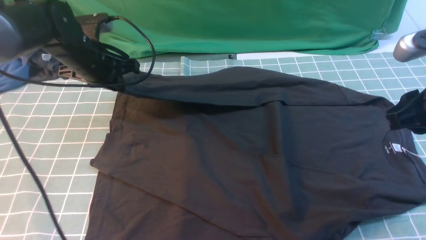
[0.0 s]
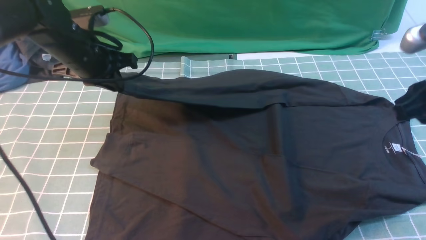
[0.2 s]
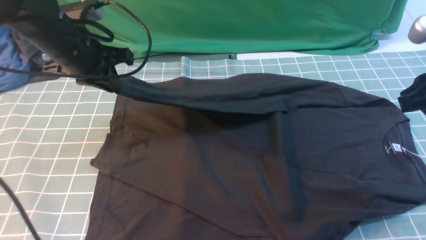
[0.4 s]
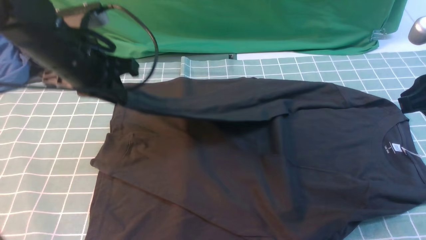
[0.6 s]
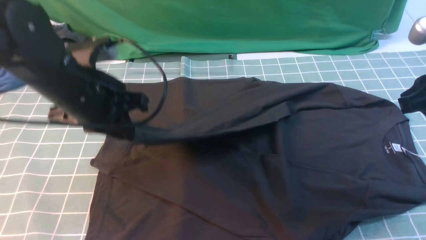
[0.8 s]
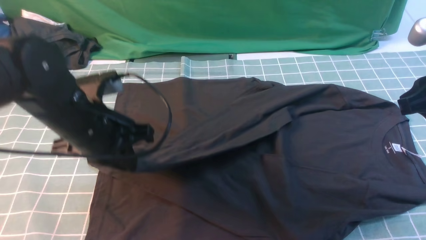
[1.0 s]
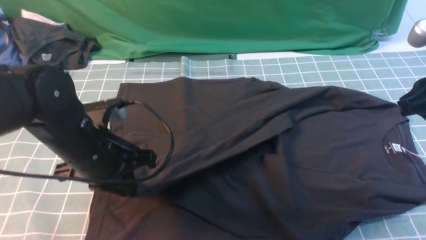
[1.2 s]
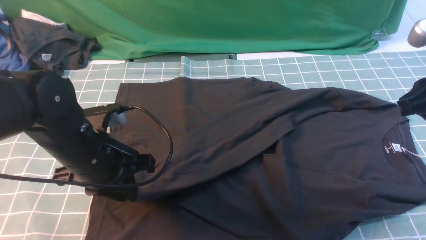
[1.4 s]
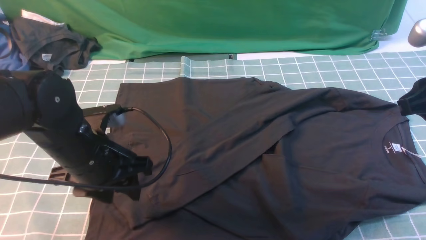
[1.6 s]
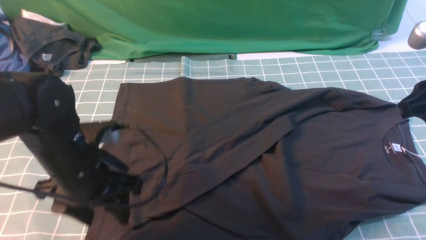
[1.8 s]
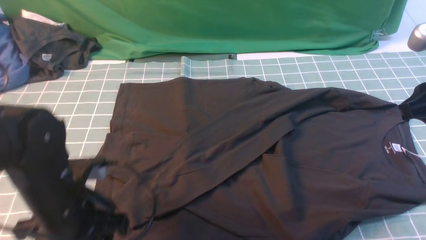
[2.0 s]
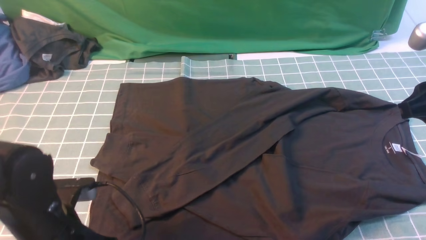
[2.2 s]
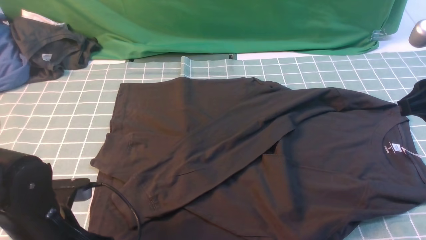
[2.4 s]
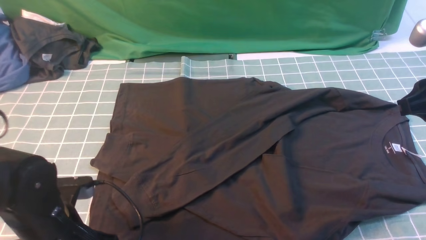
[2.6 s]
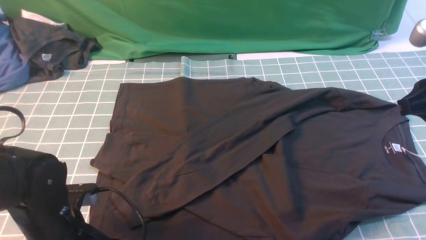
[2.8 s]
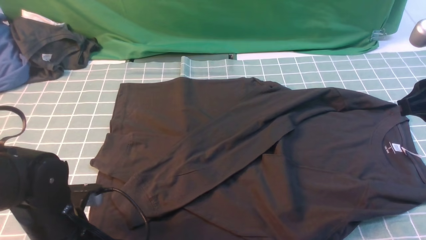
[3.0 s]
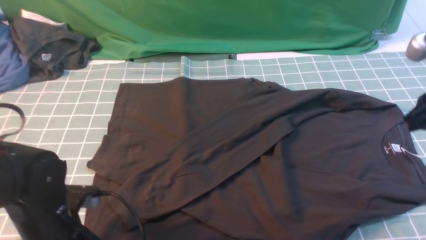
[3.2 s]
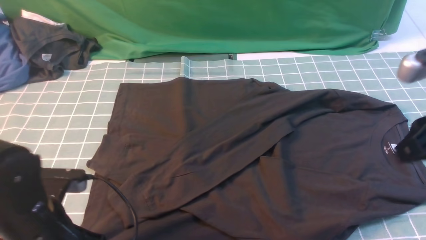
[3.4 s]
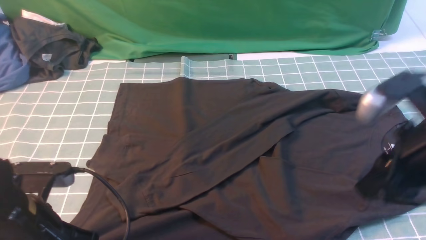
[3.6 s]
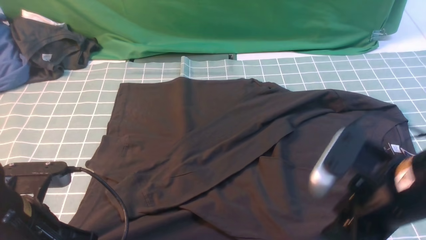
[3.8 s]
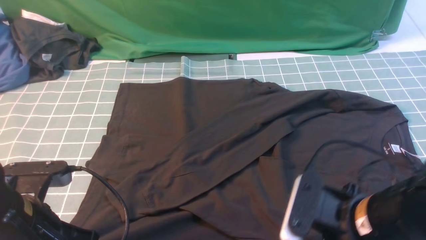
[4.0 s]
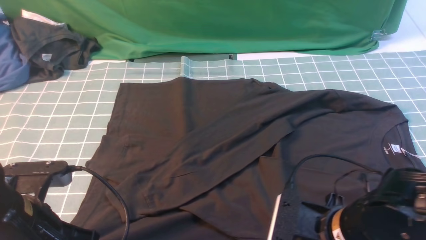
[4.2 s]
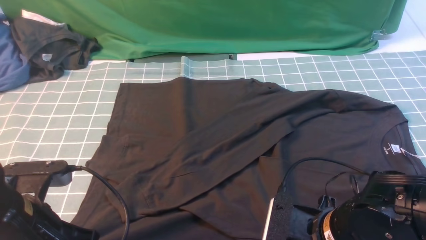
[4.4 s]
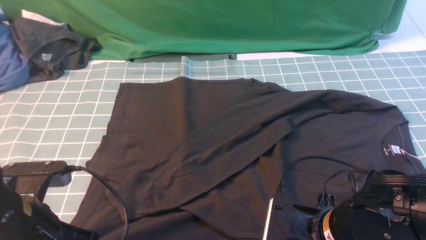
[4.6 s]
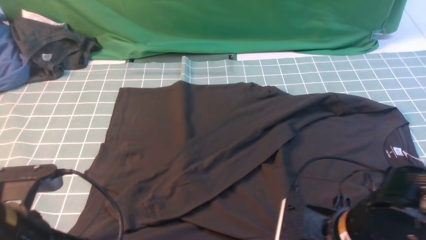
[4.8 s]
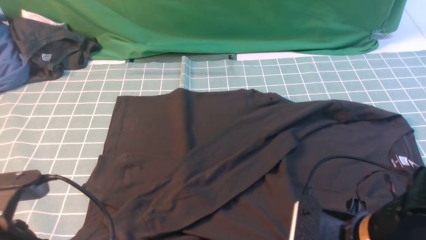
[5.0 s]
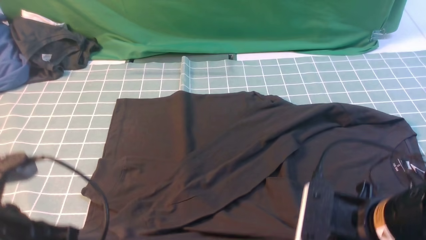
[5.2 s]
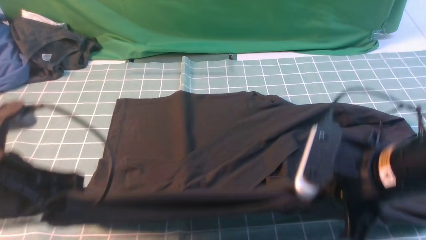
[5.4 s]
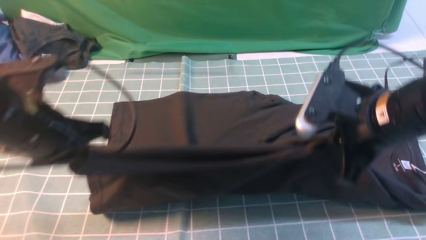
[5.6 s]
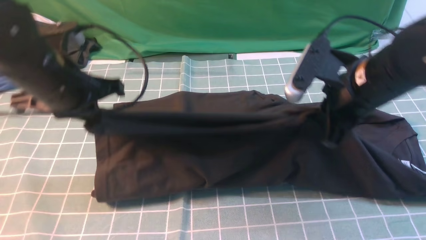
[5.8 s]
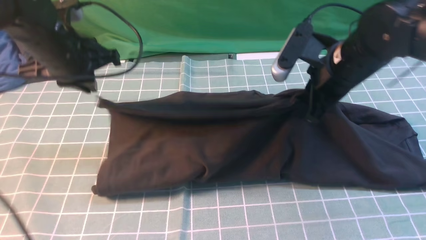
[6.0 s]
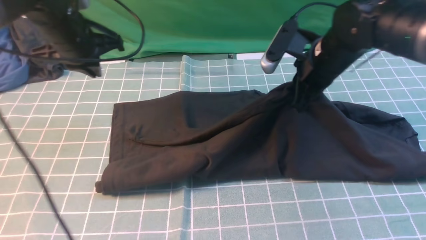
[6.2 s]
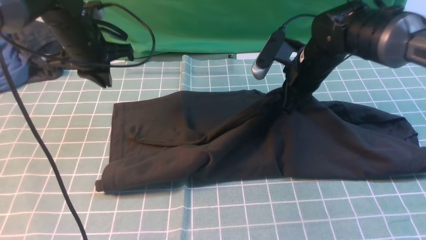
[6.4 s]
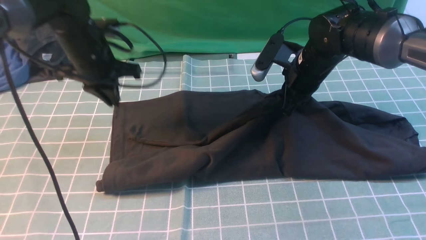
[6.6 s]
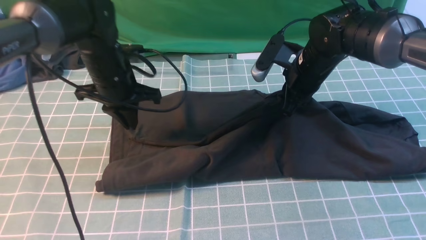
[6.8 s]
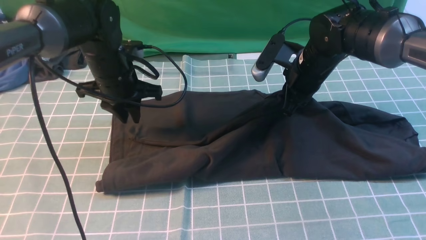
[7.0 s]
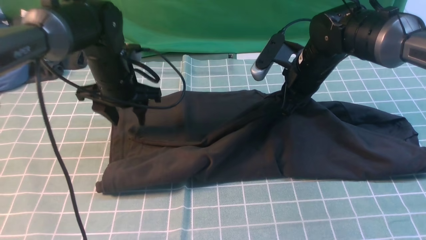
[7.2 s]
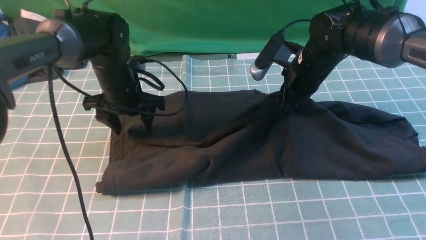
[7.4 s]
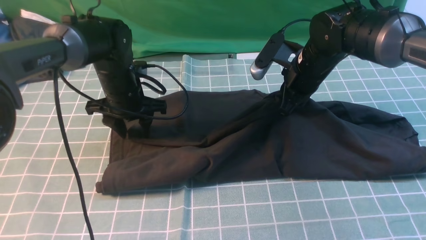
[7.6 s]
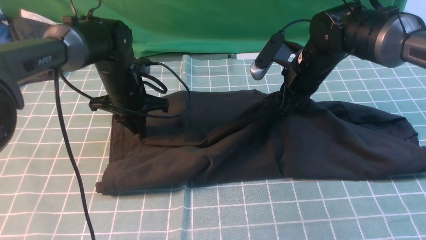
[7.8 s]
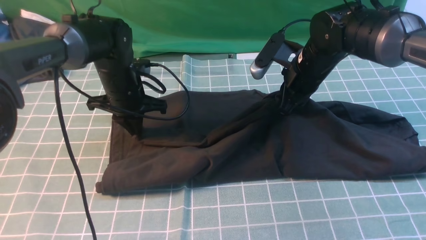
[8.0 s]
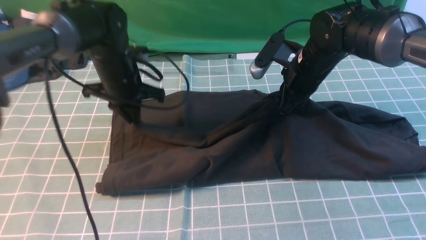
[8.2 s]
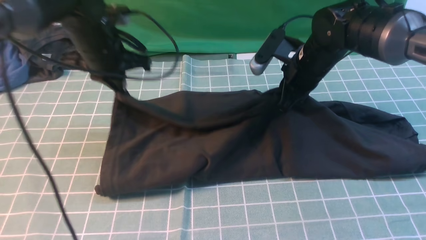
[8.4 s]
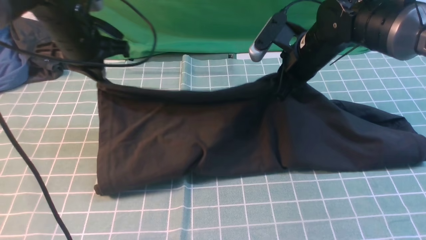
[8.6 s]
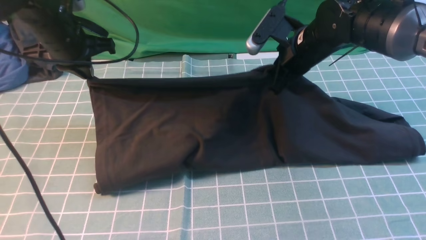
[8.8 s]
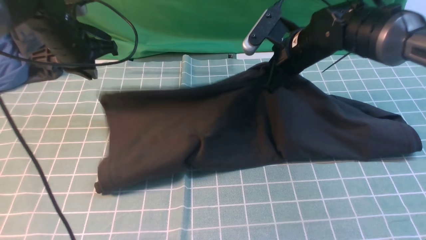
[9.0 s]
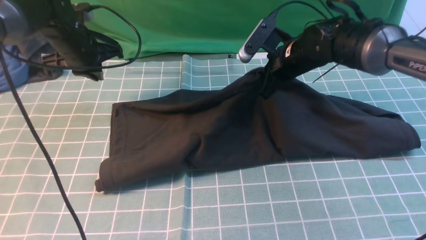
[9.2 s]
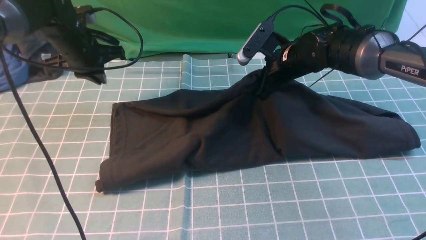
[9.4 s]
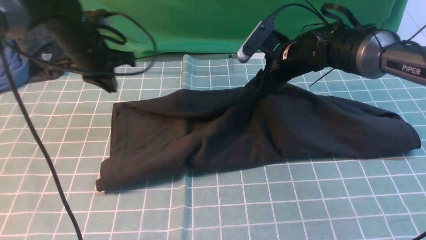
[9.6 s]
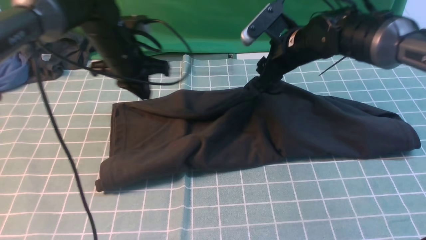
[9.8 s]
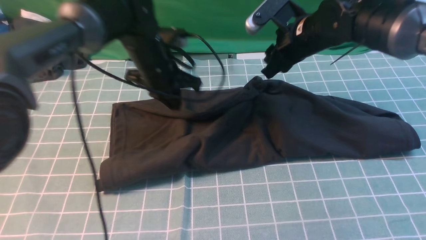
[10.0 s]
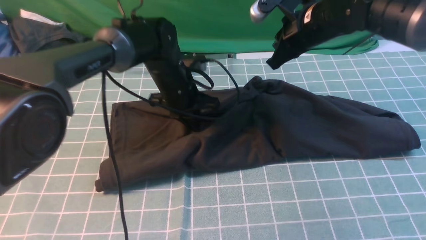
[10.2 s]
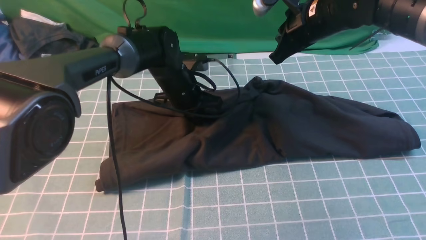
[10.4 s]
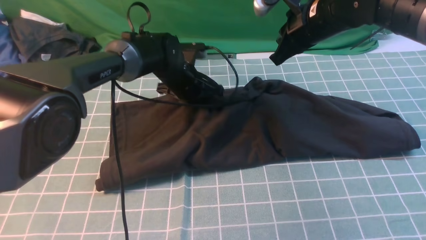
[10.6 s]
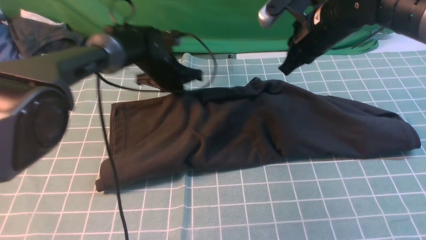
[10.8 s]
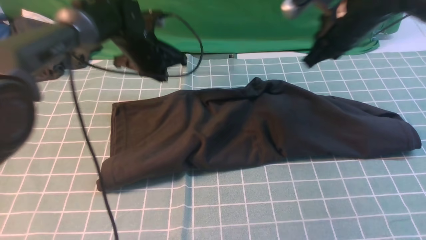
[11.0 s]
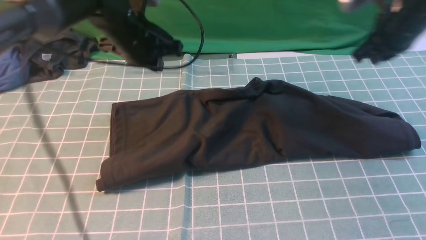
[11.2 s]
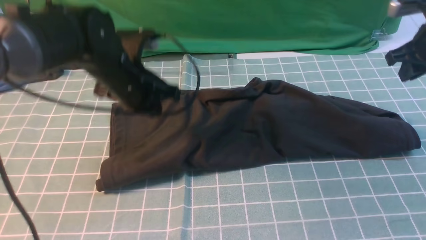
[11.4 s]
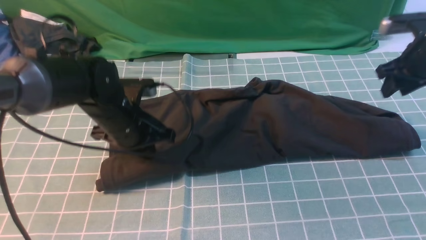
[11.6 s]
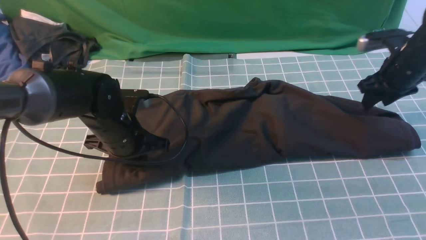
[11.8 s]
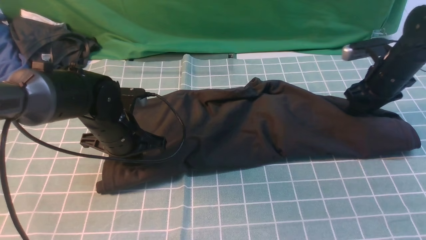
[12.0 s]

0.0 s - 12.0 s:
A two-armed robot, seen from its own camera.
Step, 0.0 s - 1.6 s: use the left arm to drag and drop the cuff onto the cuff closest to the left arm.
Step, 1.8 s - 4.8 s: use both arms simultaneously to clamp the lower edge of the clothing fabric.
Step, 5.2 s - 9.8 s: use both arms to drag the lower edge of the fabric forward and fold it over the upper edge.
0.0 s - 1.6 s: The left gripper goes some 20 cm backward, and opens its fingers.
1.6 s - 3.0 s: The left gripper travels backward and downward by roughly 10 cm, and closes up.
3.0 s - 4.4 s: The right gripper is displaced downward, to the left and backward by some 25 cm. Meanwhile the left gripper travels upward by about 5 cm.
4.4 s - 6.0 s: The left gripper travels forward by some 25 cm. The right gripper travels forward and upward by approximately 20 cm, and closes up.
6.0 s - 7.6 s: The left gripper travels downward by about 10 cm, and opens up. The right gripper goes roughly 10 cm forward and downward.
7.6 s - 9.0 s: The left gripper moves to the left and upward, some 10 cm, and closes up.
9.0 s - 10.4 s: The left gripper moves to the right and downward, about 20 cm; the right gripper travels upward by approximately 5 cm, and opens, then closes again.
10.4 s - 12.0 s: The right gripper travels to the right and downward by some 20 cm, and opens up; the left gripper heads backward and to the left, covering roughly 15 cm.

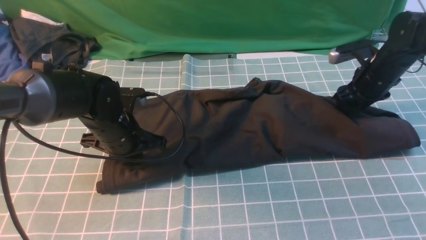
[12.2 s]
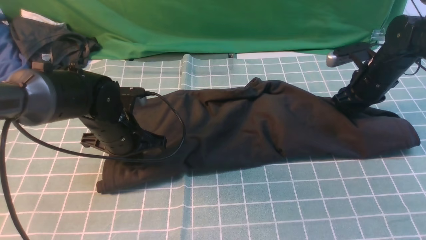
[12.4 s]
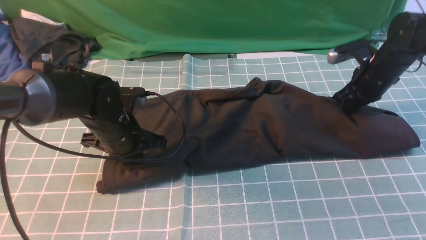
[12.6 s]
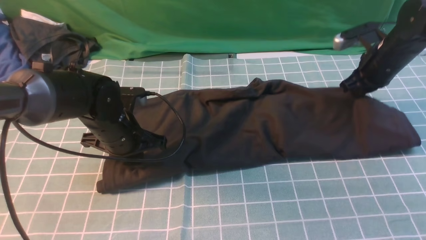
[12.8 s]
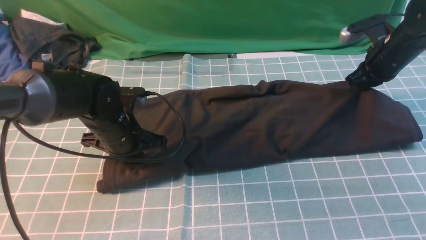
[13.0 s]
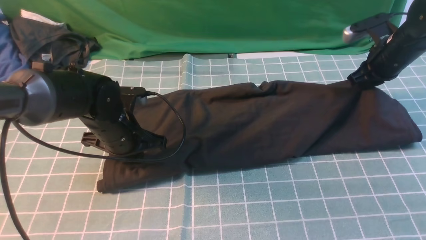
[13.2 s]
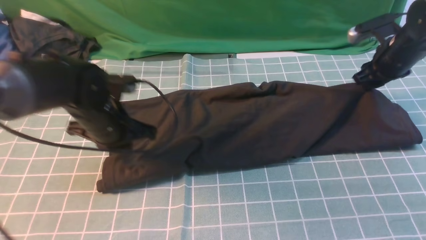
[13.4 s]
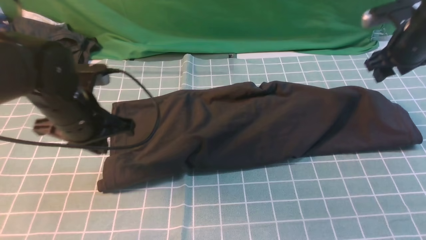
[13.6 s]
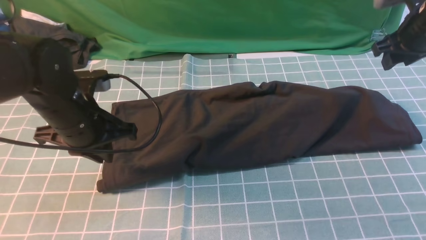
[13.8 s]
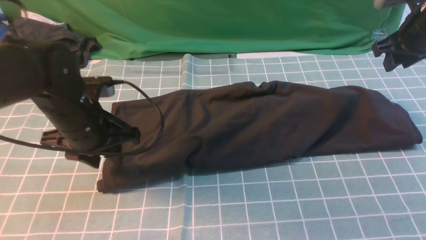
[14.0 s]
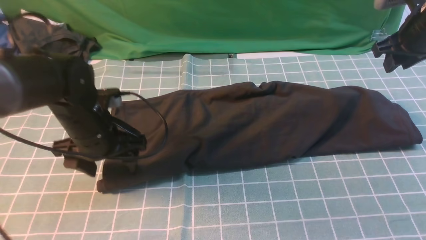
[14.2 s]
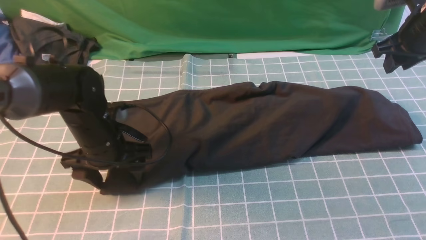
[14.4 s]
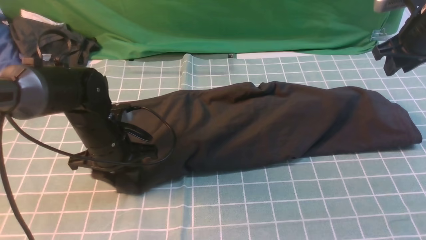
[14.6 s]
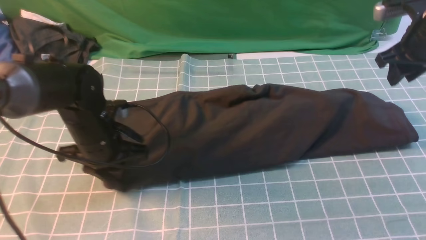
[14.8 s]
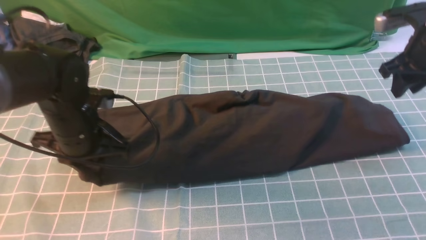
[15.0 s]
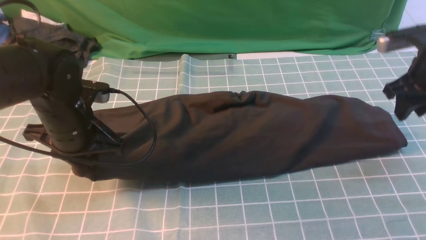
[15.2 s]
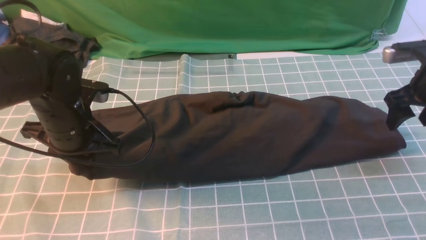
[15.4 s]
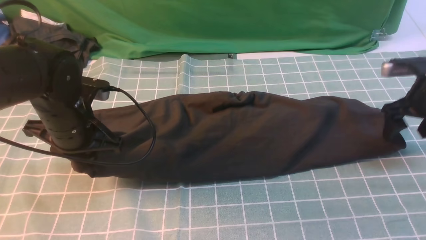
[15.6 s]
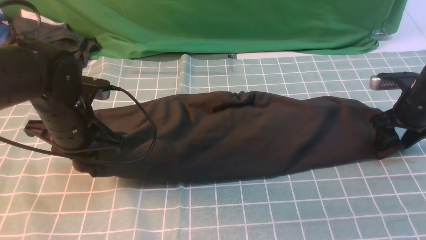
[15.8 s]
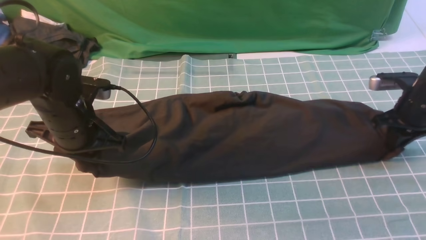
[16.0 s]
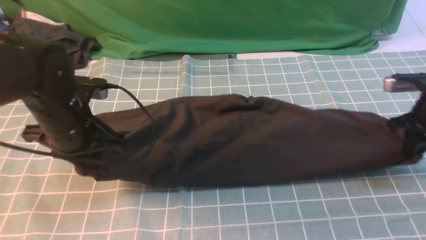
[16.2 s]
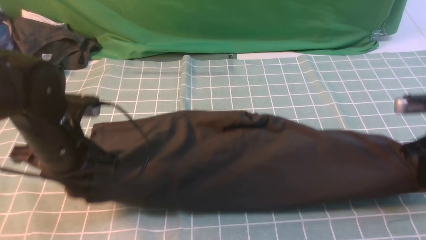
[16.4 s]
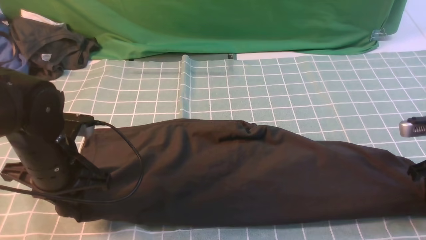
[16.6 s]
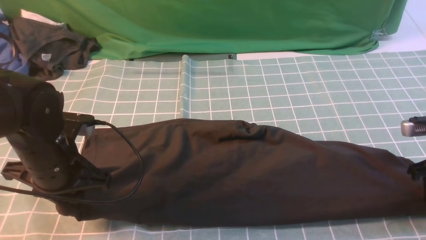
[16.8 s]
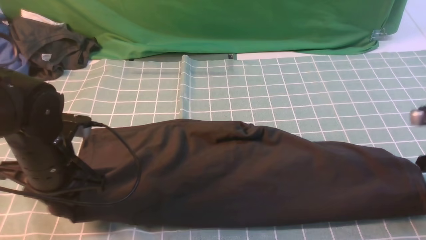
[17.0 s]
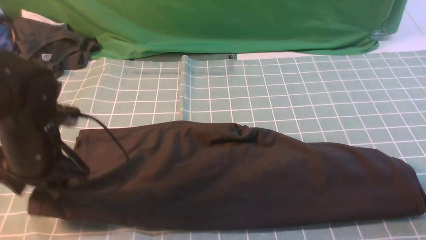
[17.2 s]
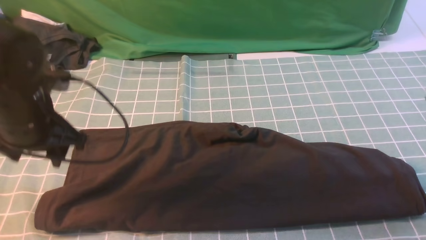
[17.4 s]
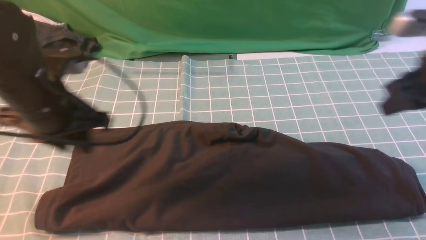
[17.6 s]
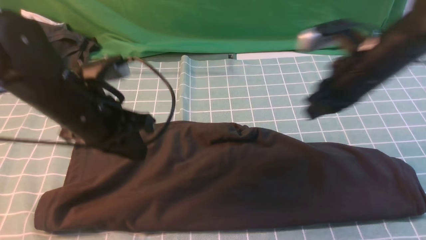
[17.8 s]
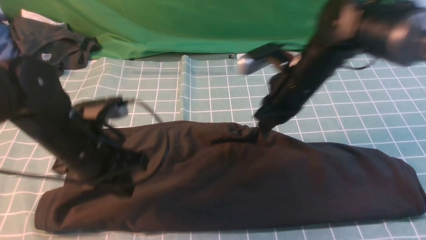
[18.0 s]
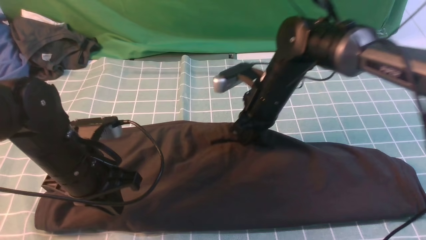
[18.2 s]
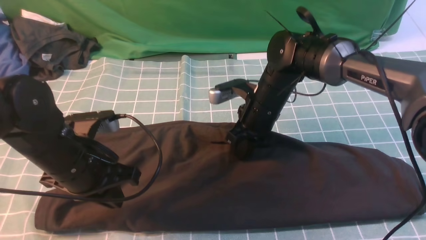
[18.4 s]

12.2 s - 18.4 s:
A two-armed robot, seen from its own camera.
12.2 s - 13.8 s: The right gripper travels upward by roughly 10 cm, and closes, then opens again. Meanwhile the left gripper is displaced upward by about 5 cm.
13.8 s - 15.4 s: The left gripper opens and closes again. The right gripper travels downward and backward by approximately 5 cm.
15.4 s - 16.8 s: The left gripper goes approximately 5 cm backward. Meanwhile the right gripper moves backward, about 10 cm, and closes.
16.8 s - 18.4 s: The right gripper goes roughly 30 cm to the left, and closes its fingers. The left gripper opens, then closes once more.
